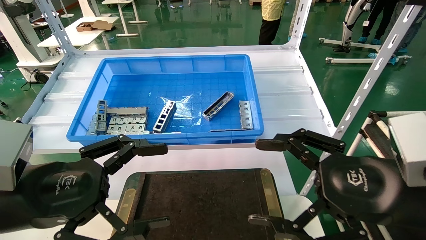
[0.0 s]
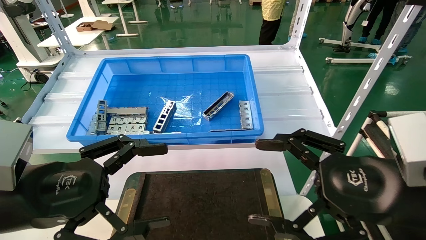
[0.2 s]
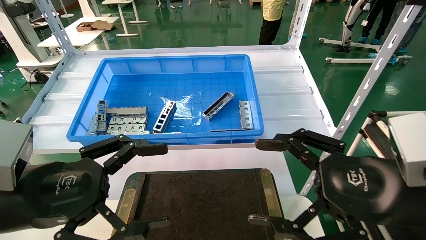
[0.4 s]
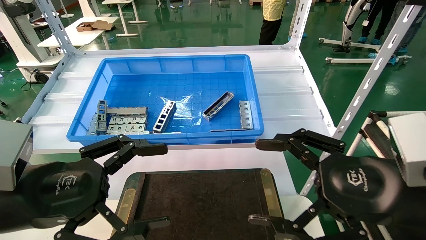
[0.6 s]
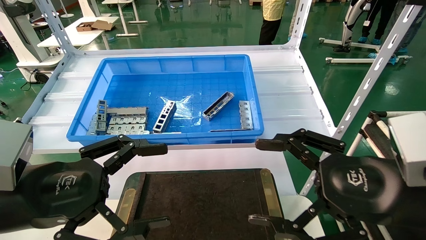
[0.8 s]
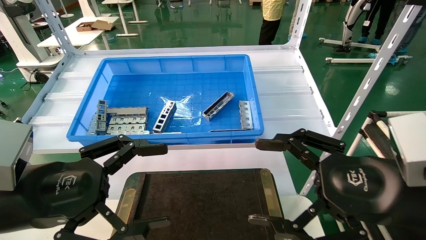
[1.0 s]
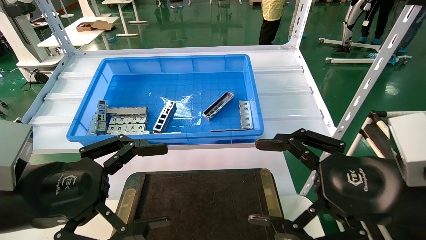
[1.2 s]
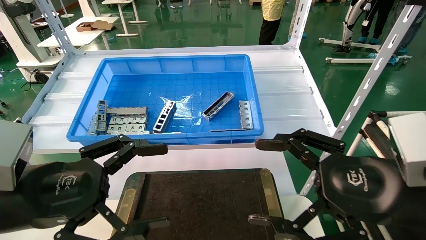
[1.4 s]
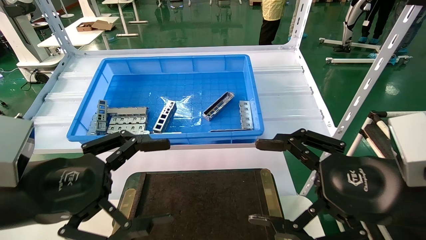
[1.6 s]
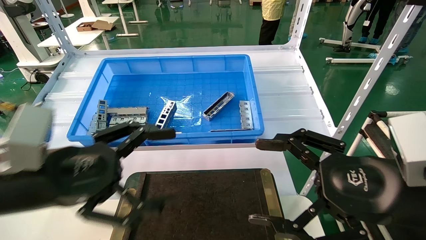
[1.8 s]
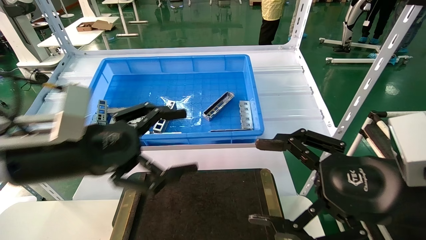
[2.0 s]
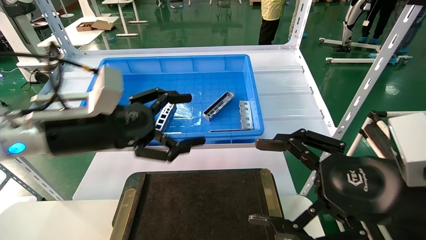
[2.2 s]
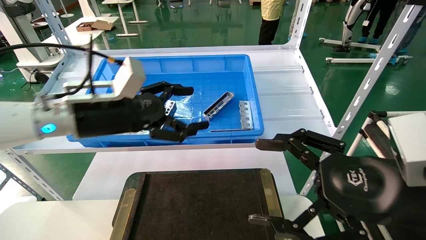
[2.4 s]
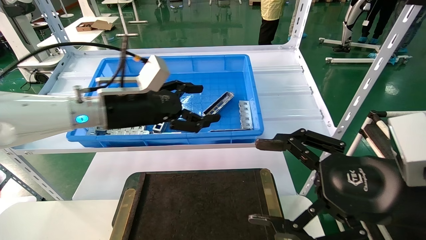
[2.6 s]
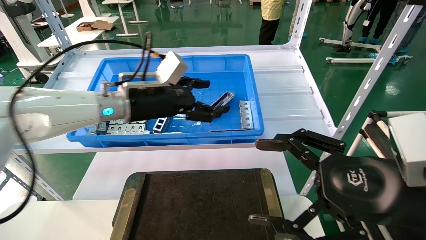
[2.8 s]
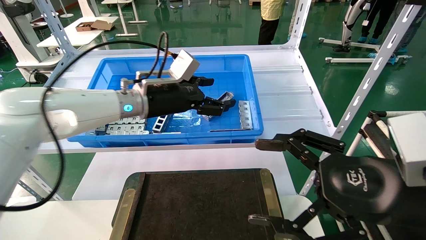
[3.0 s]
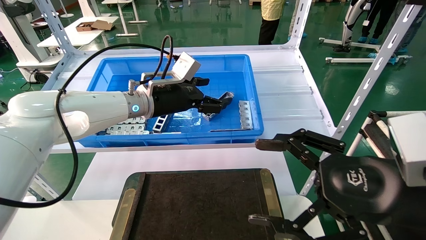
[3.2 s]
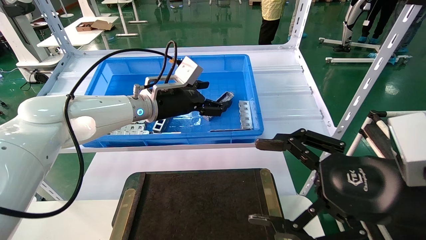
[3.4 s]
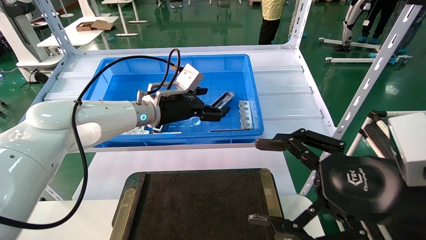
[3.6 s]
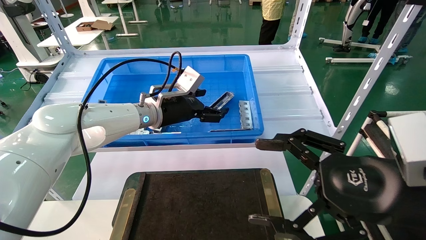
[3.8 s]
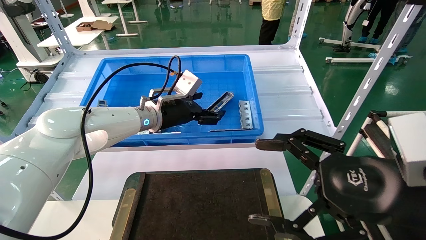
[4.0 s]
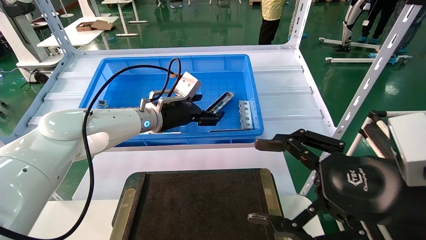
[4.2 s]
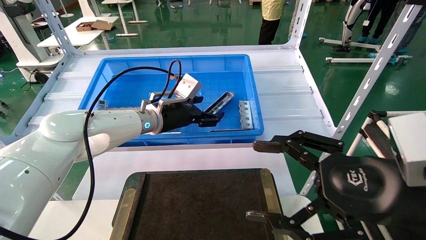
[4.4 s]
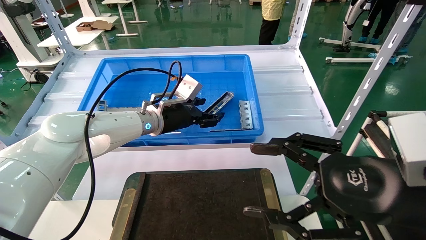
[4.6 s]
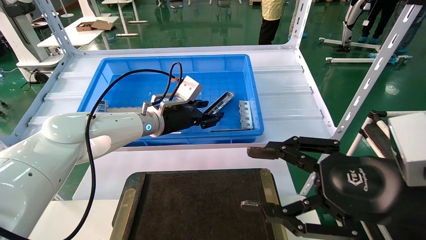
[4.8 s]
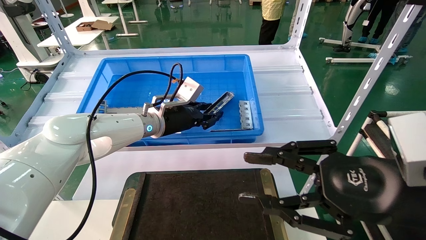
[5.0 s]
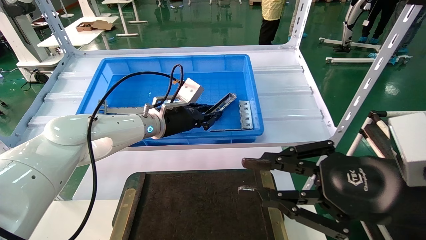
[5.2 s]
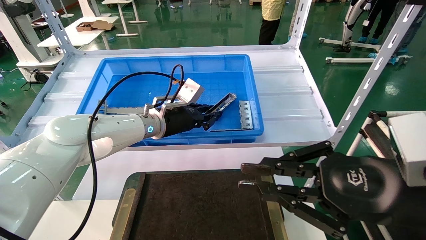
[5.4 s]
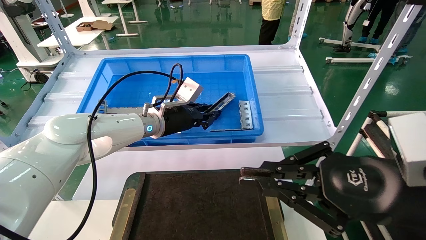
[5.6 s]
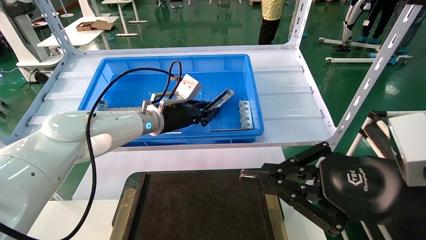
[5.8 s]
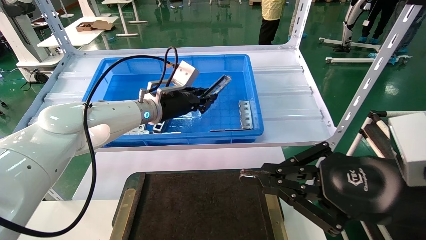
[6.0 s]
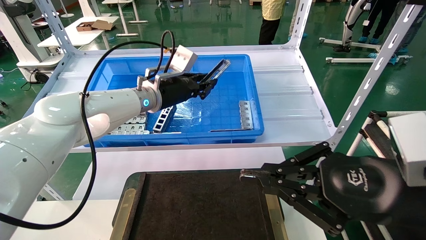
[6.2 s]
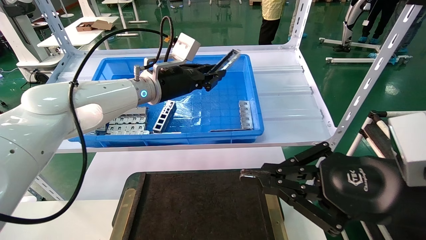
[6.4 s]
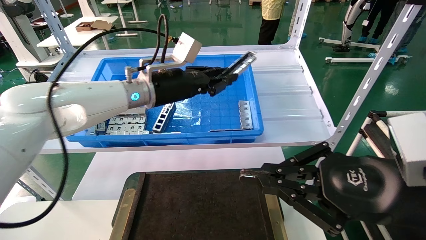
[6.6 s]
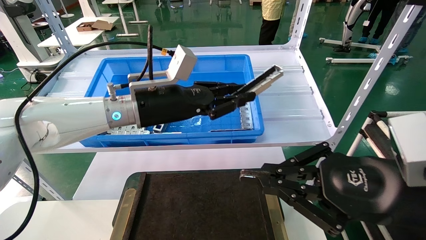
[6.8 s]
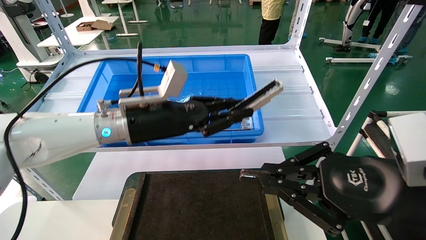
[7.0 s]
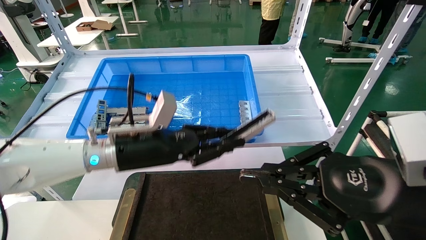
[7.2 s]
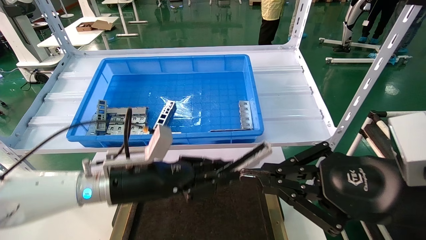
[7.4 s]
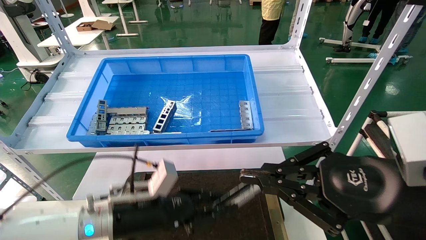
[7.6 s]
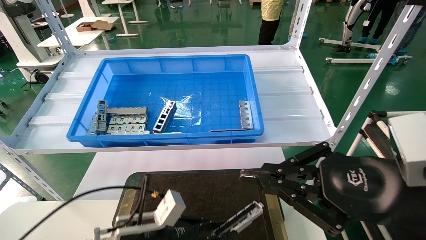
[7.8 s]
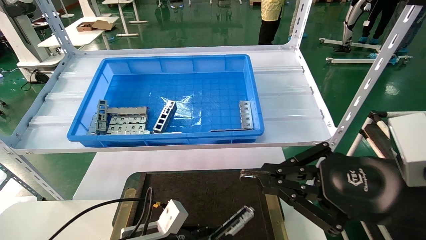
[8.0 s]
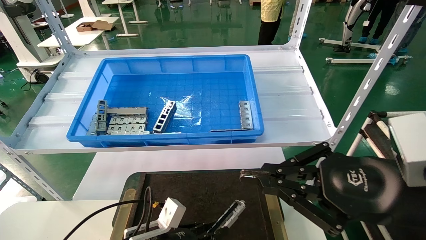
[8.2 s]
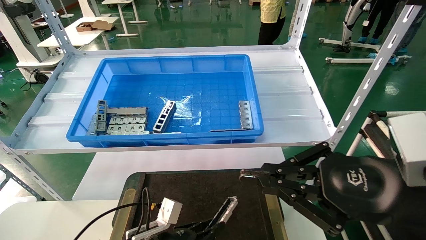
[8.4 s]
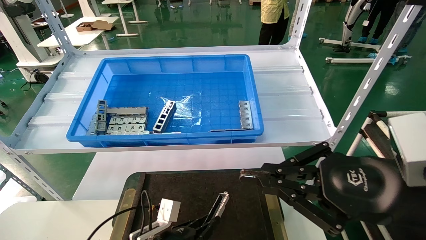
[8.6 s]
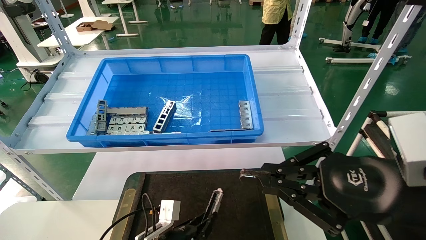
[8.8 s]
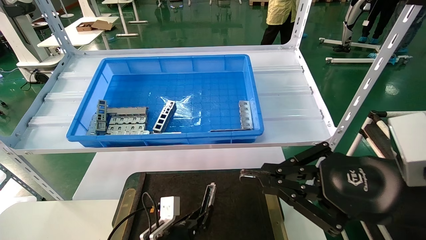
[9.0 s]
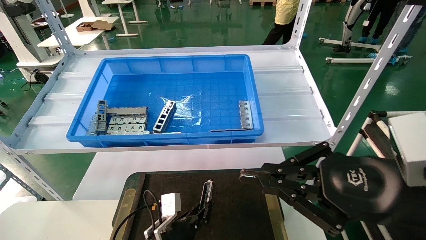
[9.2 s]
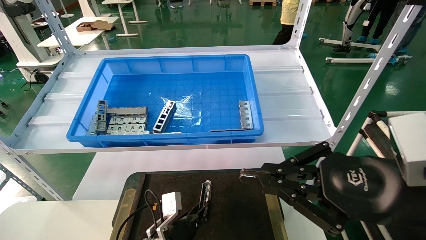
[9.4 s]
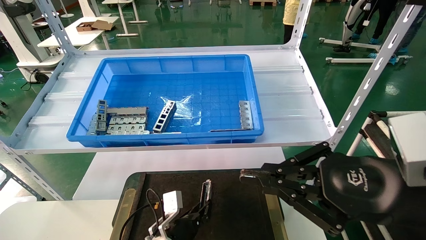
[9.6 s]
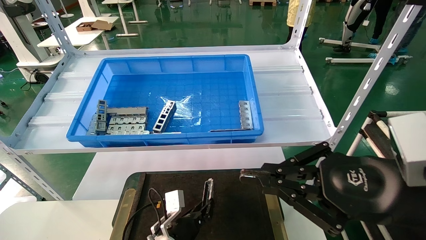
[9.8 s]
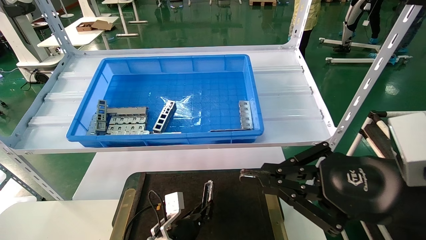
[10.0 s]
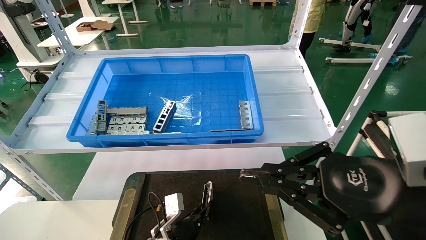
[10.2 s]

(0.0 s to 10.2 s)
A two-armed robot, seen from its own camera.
Task of the whole recording: Grasp the part with one hand and place it on the black container.
Step, 1.8 s - 6.0 s: Pick up the front USB bracket from the feeding area.
0.0 s - 1.4 s: Neither gripper changes place.
1.4 s - 3.0 s: The left gripper is displaced forward and to the right by some 30 cm.
3.0 s - 4.4 s: The left gripper shifts some 5 cm downward.
4.4 s - 5.8 s: The left gripper closes its fingers; the right gripper closes.
5.8 s - 7.2 s: The left gripper heads backward, covering some 10 cm.
7.2 s - 8.8 s: The left gripper shifts about 25 cm downward.
8.8 s - 10.2 s: The left gripper changes place by about 5 cm.

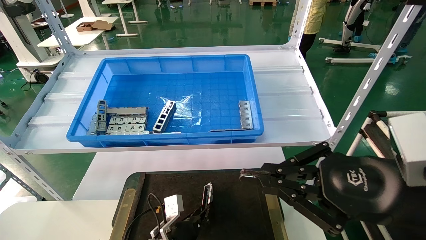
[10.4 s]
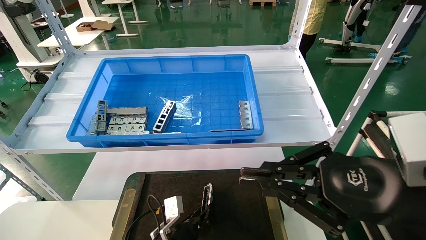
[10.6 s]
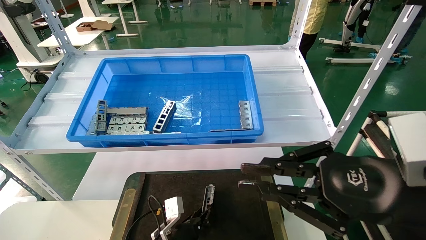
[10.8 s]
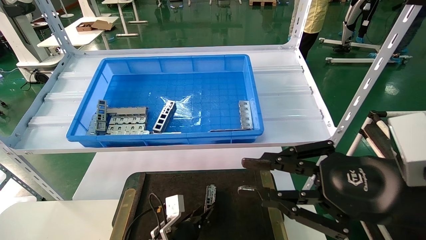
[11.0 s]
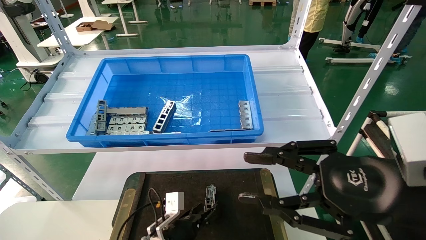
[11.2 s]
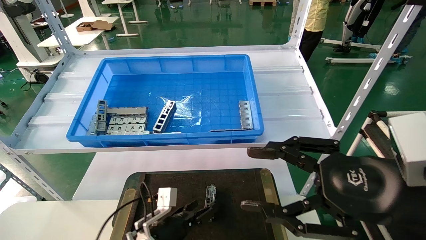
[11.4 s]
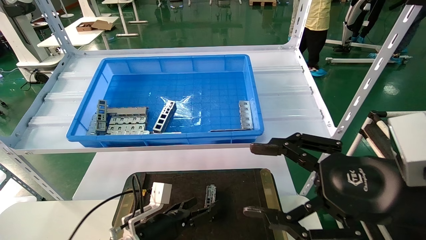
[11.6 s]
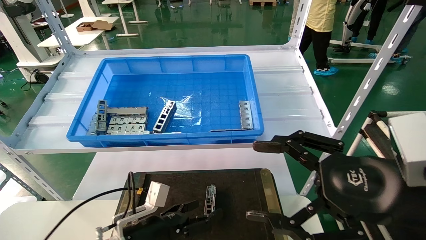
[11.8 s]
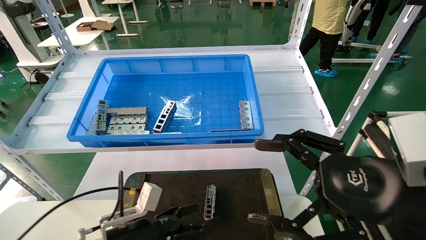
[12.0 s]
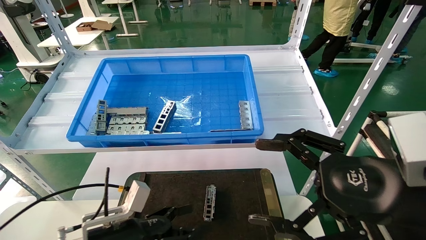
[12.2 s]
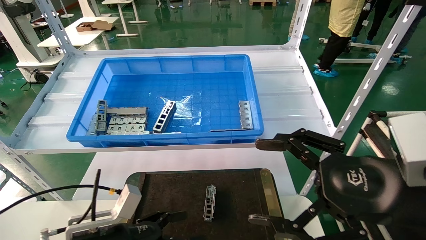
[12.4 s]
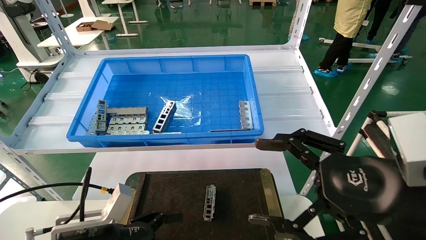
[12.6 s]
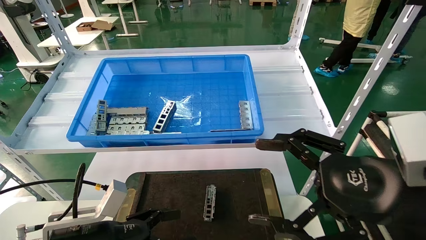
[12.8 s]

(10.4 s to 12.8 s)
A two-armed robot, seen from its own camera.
Task of the whole recording: Grasp the part with one hand and place it on the black container.
10.4 s - 11.6 s: The left gripper is displaced upward and to the left by about 10 cm, and opens its fingers, while the right gripper opens up.
11.6 s - 12.8 s: The left gripper shifts approximately 15 cm upward, backward and to the left.

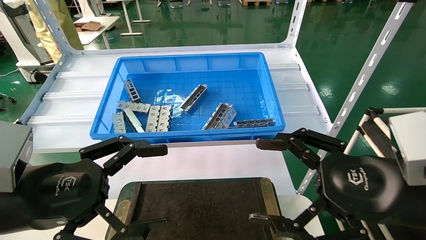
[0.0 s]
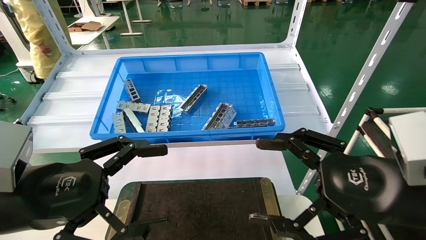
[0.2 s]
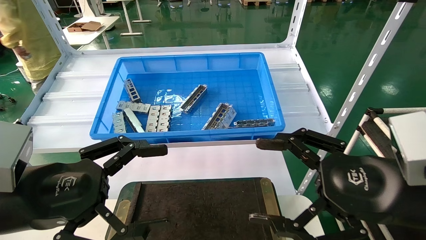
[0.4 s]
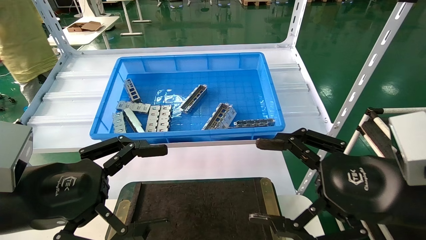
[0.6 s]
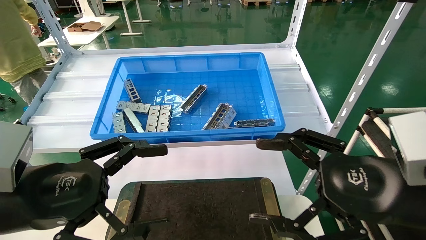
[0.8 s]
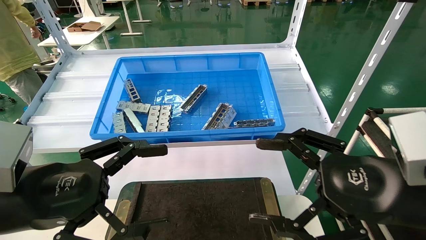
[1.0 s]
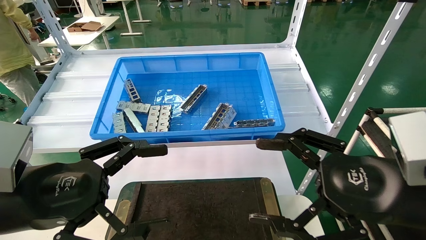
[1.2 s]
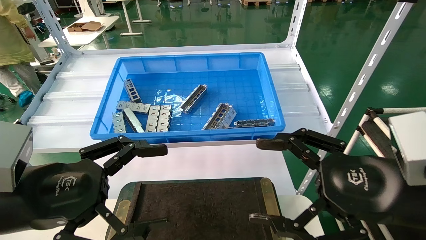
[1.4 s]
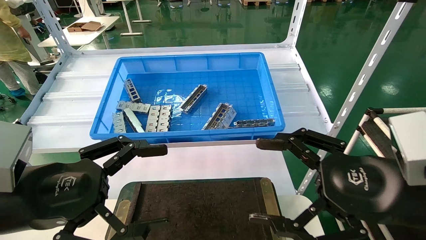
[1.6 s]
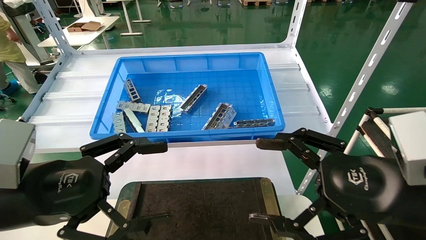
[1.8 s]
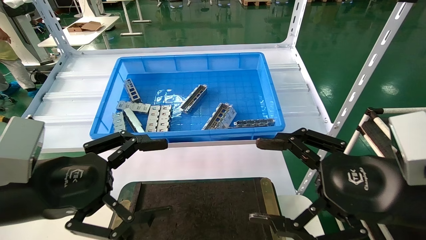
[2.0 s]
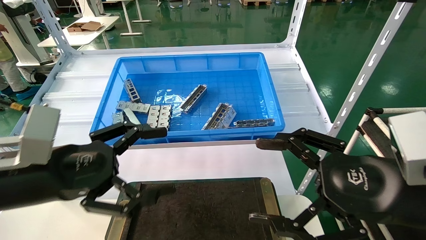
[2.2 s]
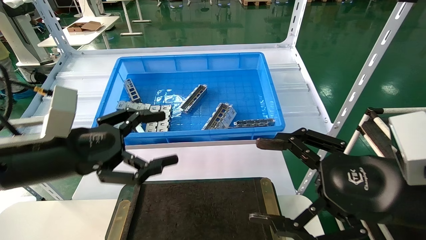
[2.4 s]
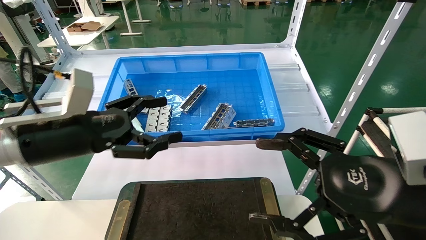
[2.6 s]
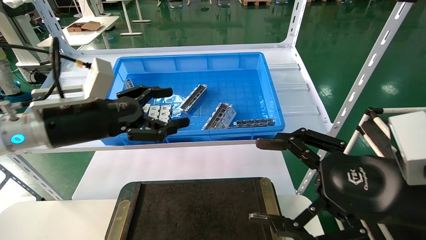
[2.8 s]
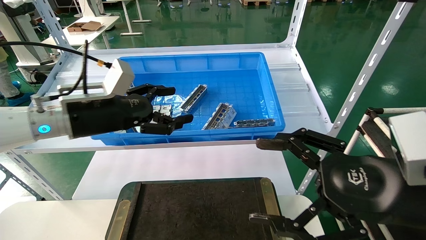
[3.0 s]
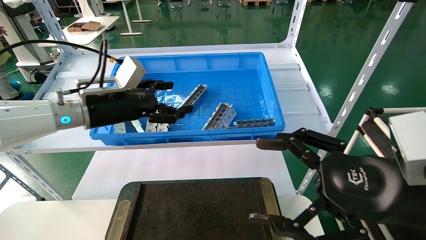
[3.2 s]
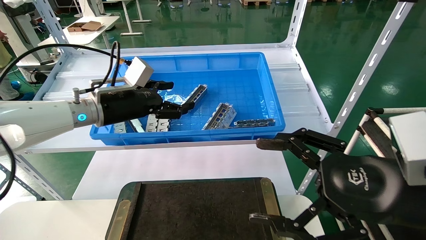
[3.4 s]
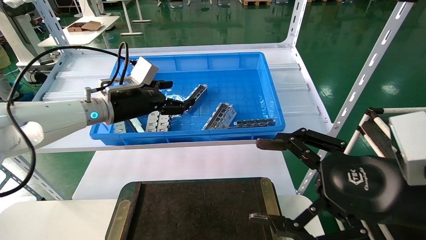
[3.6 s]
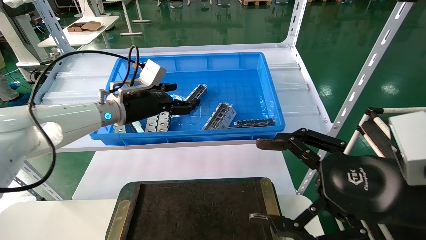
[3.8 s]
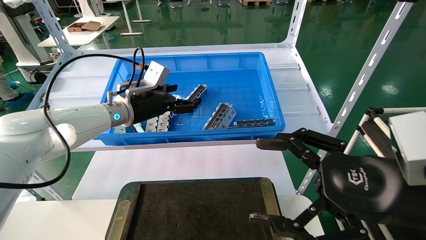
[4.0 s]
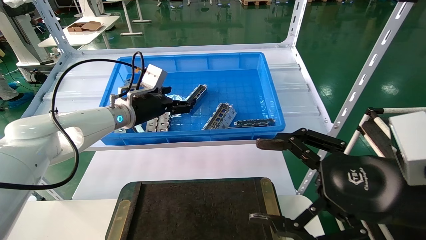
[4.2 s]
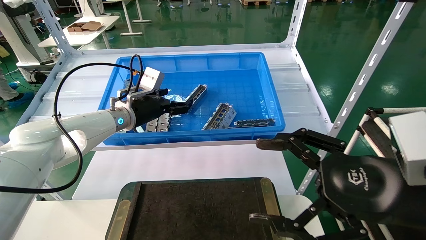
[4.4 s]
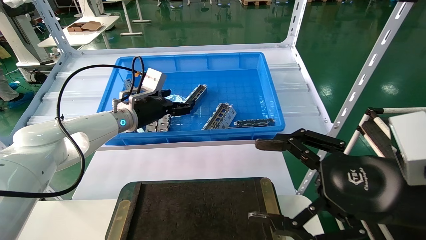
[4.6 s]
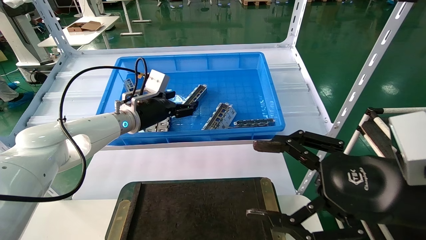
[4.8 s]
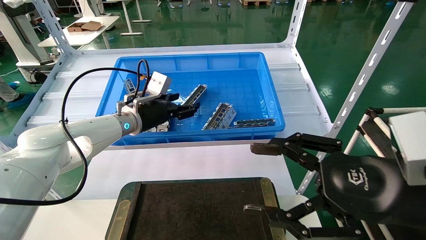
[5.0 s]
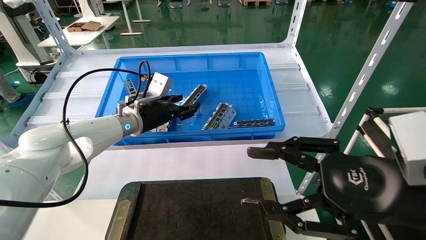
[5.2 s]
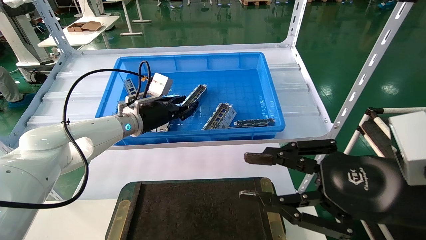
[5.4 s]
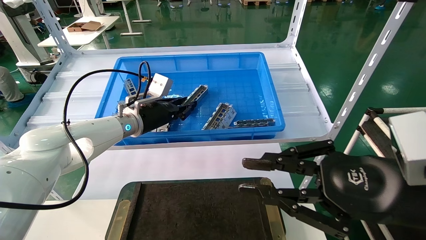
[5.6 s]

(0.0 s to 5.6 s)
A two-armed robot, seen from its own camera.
Task of the whole recording: Grasp the part with one hand and place it on the black container.
Step, 2.0 s - 5.4 s: Pick up the front USB bracket from the feeding area.
0.0 s - 1.4 s: Both grippers stay about where they are.
1.4 s - 2.8 s: The left gripper heads forward, covering roughly 15 cm.
2.8 s - 4.2 s: The left gripper goes some 15 cm forward.
4.2 s - 5.6 s: The right gripper closes. Meanwhile the left gripper closes its fingers.
